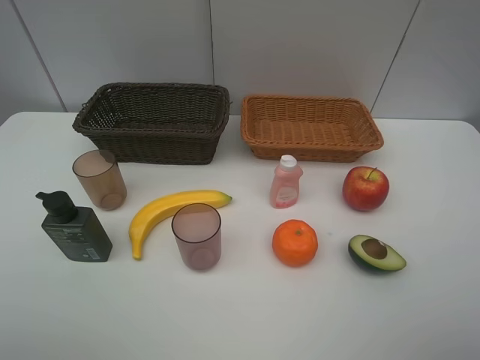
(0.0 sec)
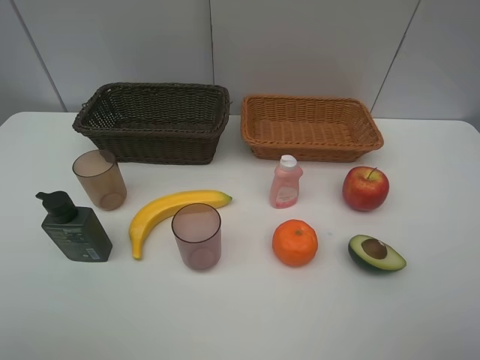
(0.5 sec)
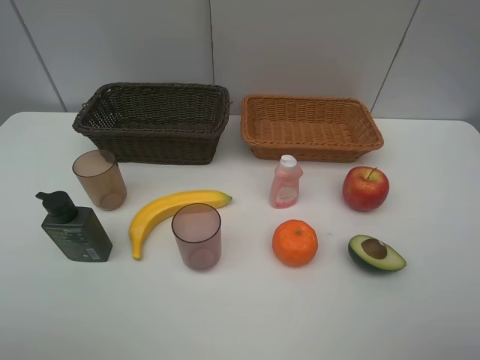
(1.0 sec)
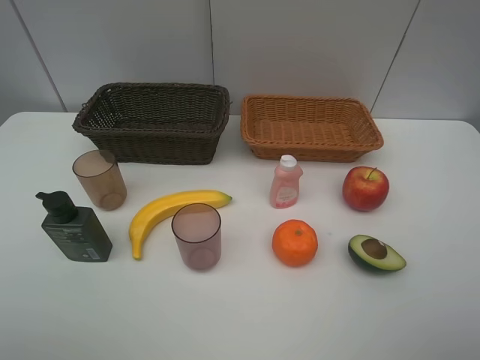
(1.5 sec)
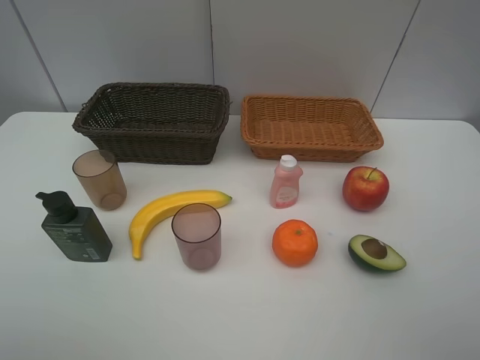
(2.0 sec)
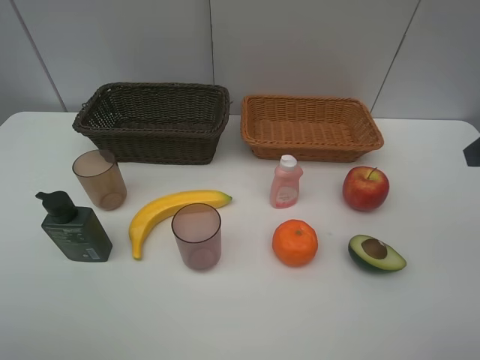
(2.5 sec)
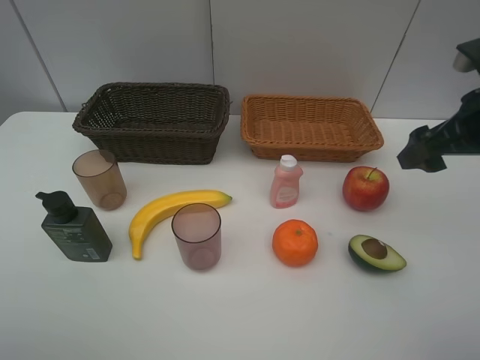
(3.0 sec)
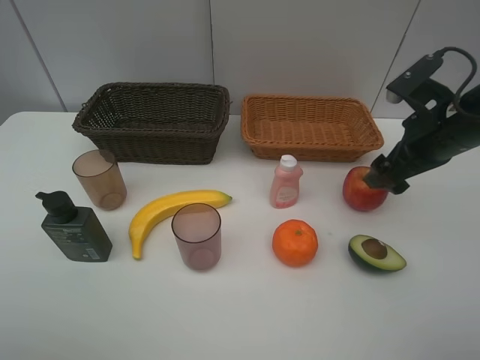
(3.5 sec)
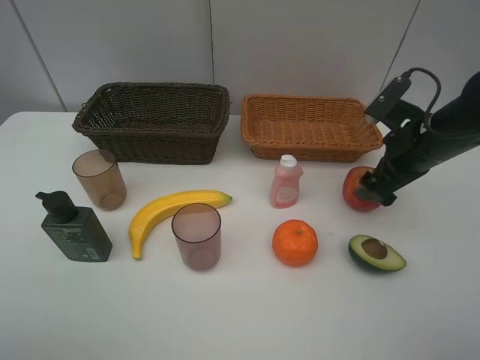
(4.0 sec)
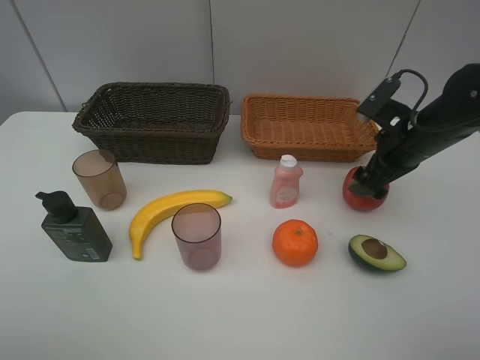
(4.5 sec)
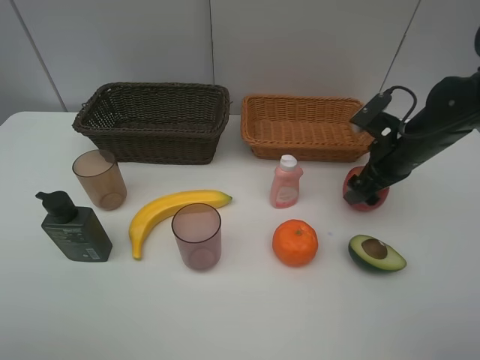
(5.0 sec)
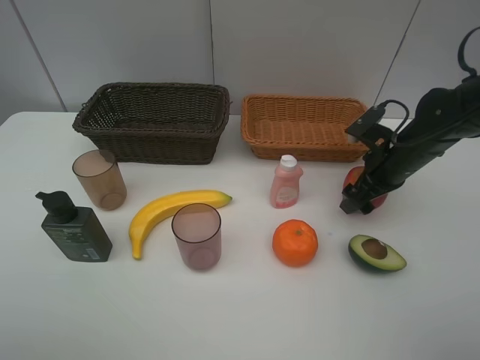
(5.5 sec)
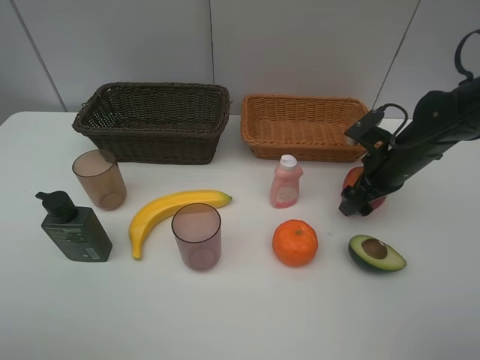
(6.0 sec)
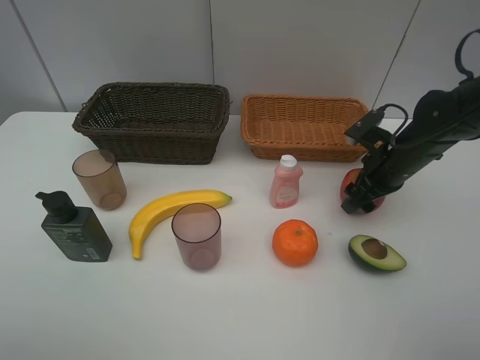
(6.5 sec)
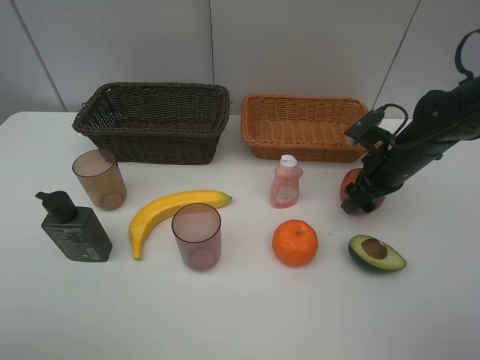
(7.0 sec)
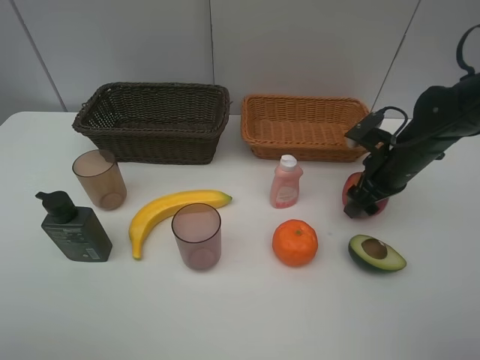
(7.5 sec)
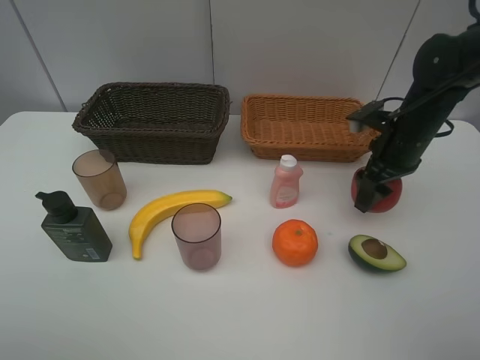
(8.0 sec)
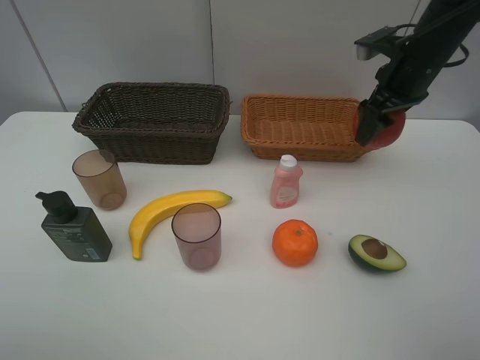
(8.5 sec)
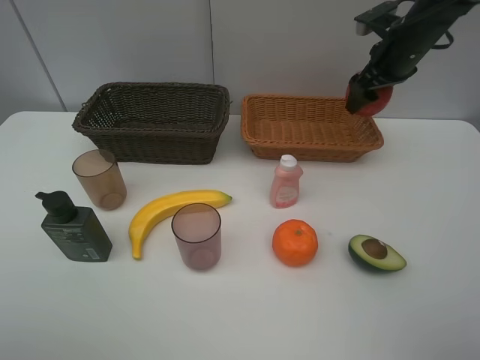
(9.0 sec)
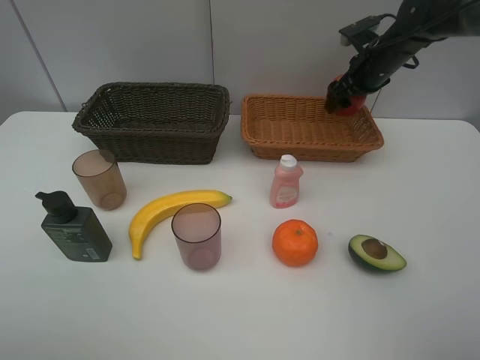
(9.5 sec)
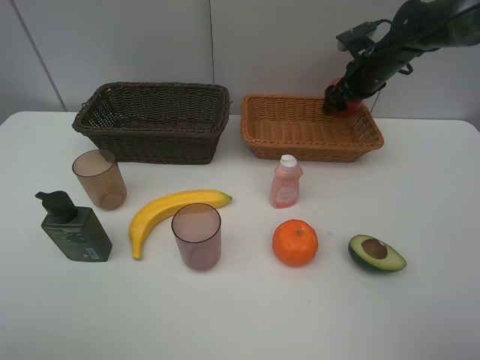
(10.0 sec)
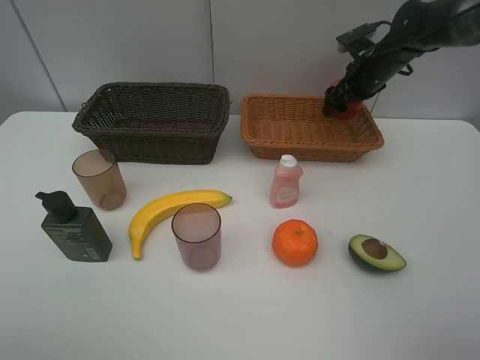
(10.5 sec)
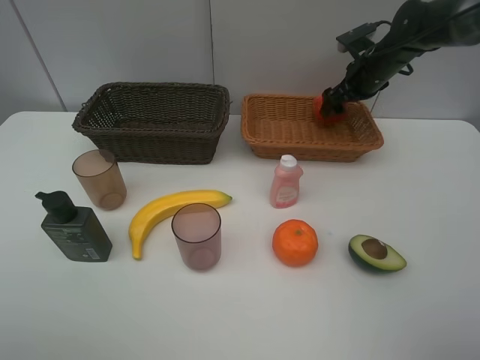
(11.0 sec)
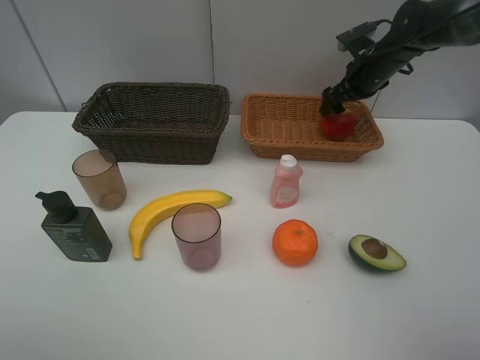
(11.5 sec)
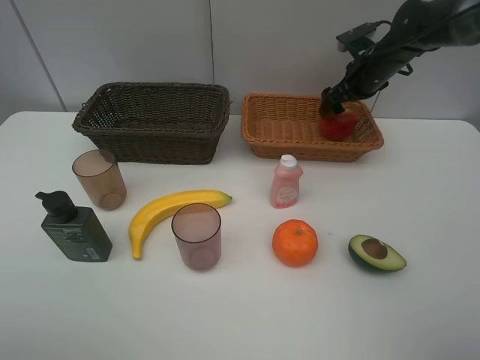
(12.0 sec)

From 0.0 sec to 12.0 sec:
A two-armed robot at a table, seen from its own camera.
Task of the whole recording: Place multiple objects separately in different baskets.
Step, from 0.0 sec to 8.0 sec: Pick up the apple with right gripper.
From 2.0 sec to 4.0 sec: The right gripper travels forward and downward by roughly 25 cm.
From 4.0 sec to 6.0 sec: The right gripper shifts some 5 cm downward.
From 6.0 sec to 8.0 sec: The right gripper ends up approximately 5 cm from where it was.
From 8.0 sec to 10.0 sec: The right gripper shifts roughly 15 cm forward.
From 10.0 sec to 12.0 sec: Neither gripper changes place.

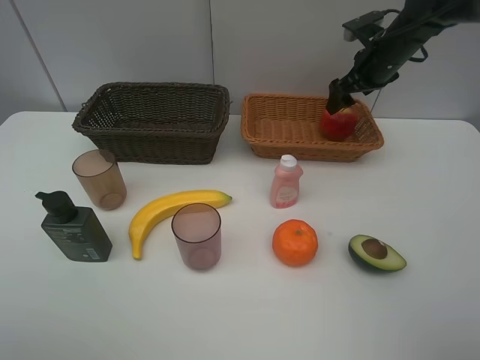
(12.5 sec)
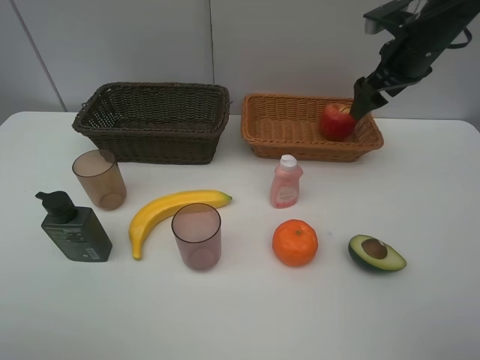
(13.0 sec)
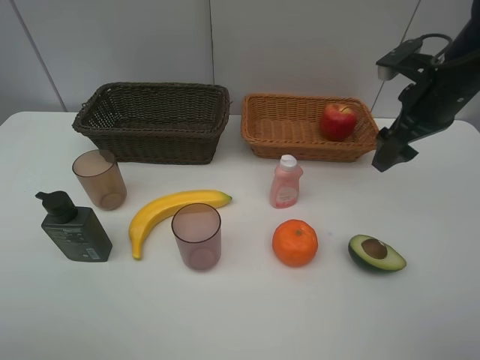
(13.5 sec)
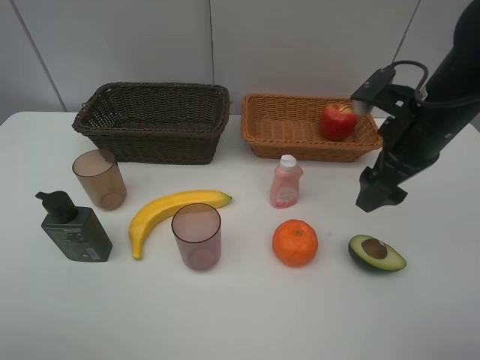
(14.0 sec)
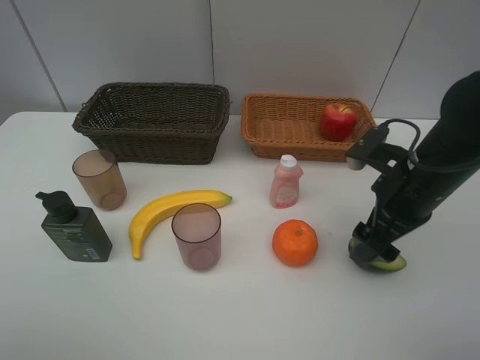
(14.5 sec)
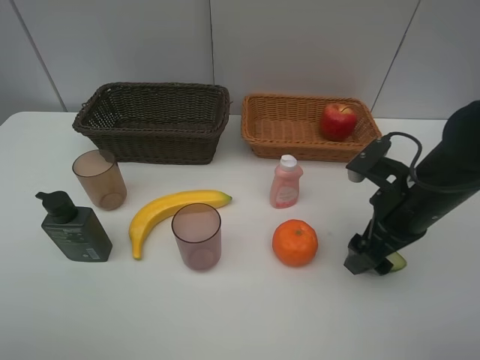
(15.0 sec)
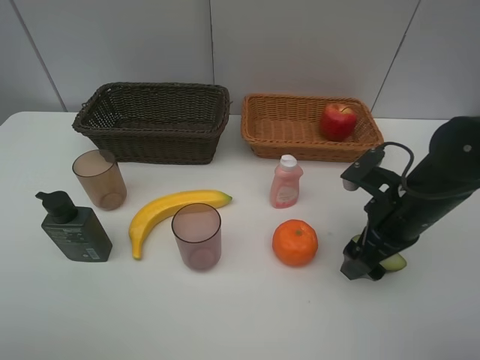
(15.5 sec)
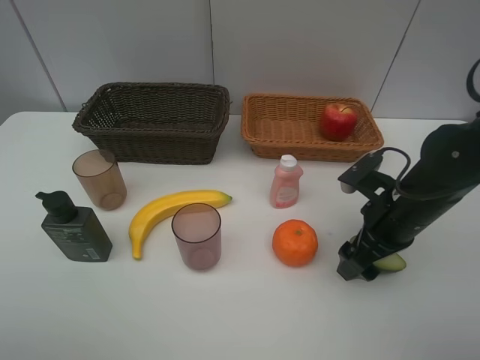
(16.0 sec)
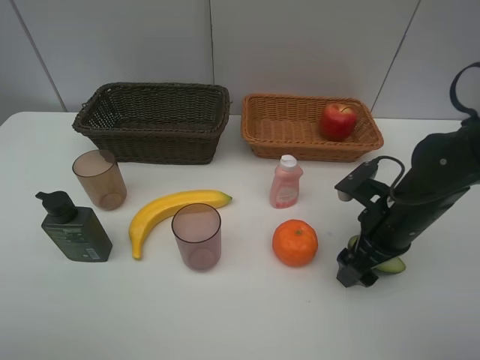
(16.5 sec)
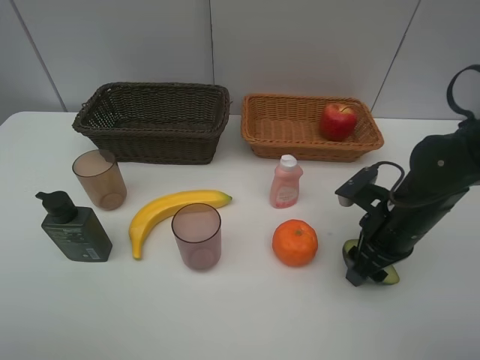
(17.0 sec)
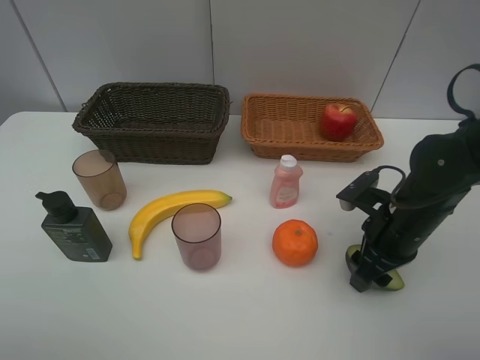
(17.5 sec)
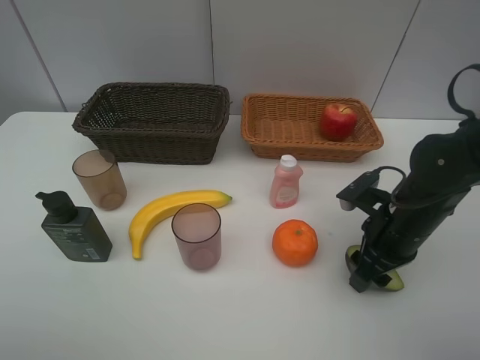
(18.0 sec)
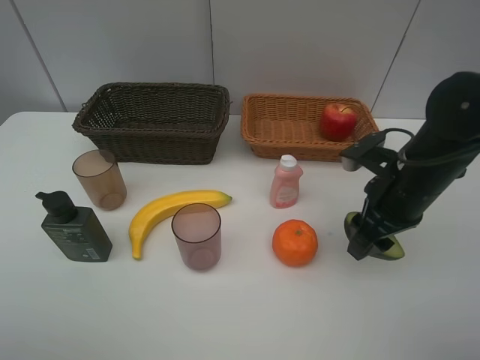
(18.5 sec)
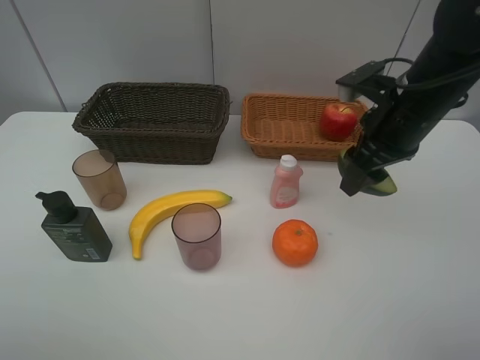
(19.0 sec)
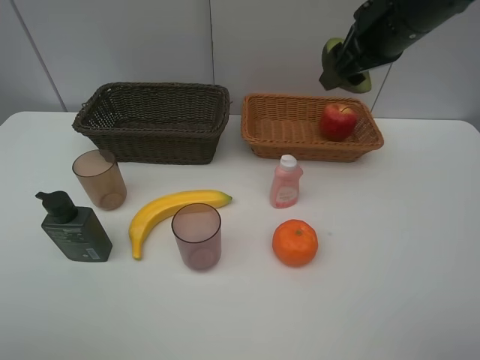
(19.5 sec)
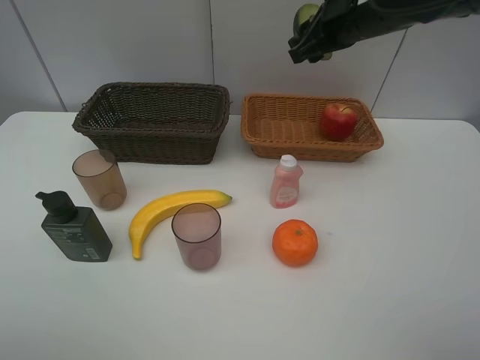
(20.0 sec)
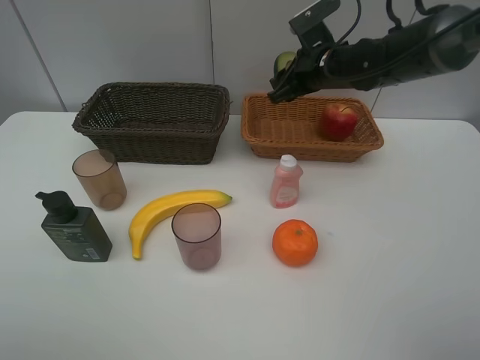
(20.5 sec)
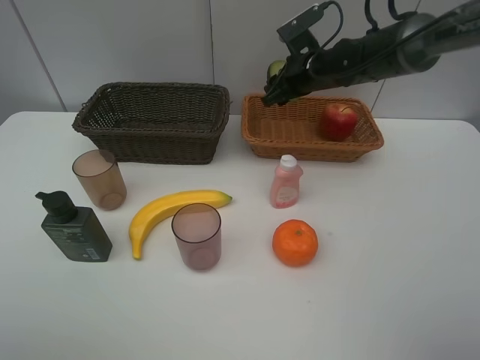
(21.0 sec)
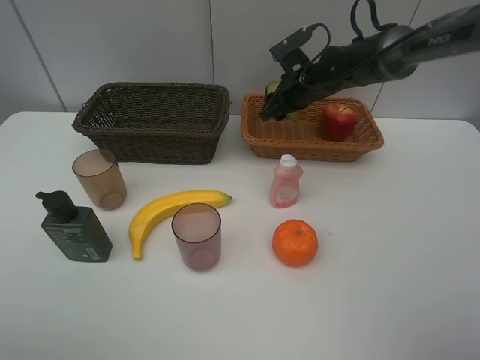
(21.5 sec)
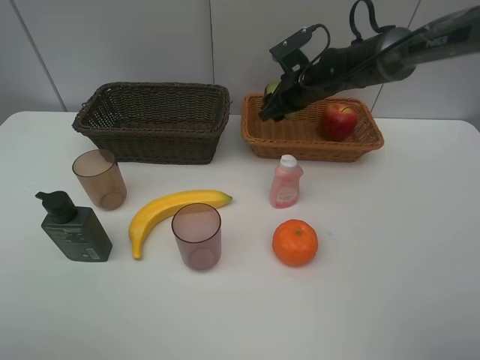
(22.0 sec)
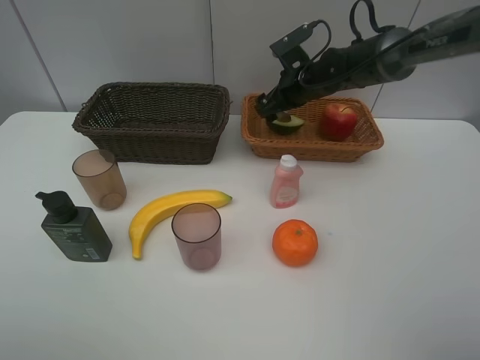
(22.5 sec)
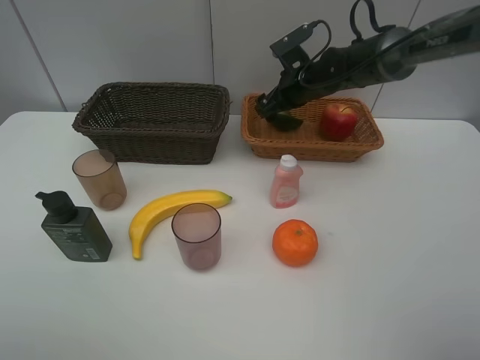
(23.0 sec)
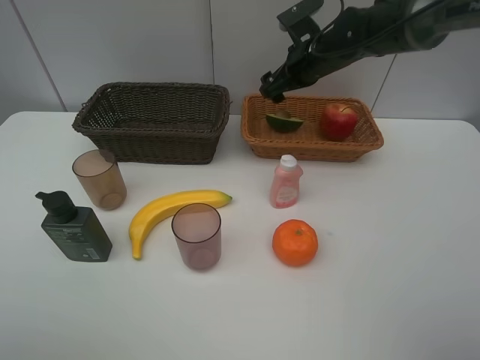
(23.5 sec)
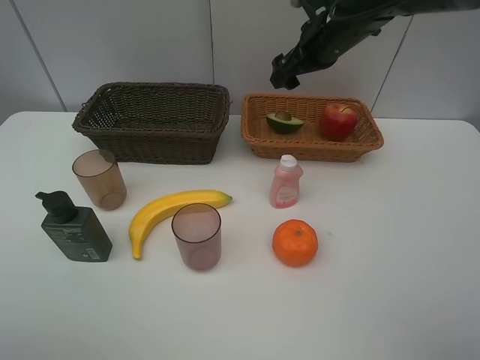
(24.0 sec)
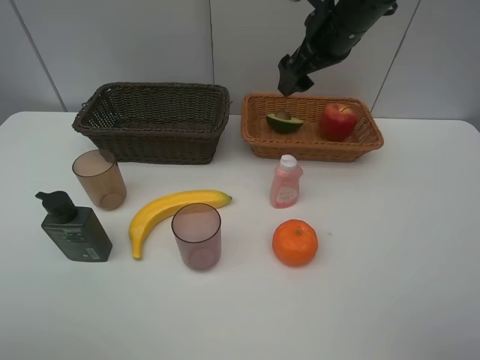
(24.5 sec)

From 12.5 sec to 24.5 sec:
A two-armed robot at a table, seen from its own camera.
Task of the whole recording: Place multiple objects separately in different baskets.
Step, from 12.5 sec to 18.0 sec: Pick up the avocado with right gripper.
Step, from 18.5 sec to 23.0 sec: Place the avocado in the light basket with right gripper.
From 12.5 sec to 14.5 sec: The right gripper shifts roughly 25 cm backward.
From 14.5 sec to 16.5 sec: The right gripper heads downward, covering some 5 cm.
From 16.5 sec to 18.5 sec: The right gripper shifts some 5 cm upward, and closes its fingers.
From 18.5 sec to 20.5 sec: The right gripper goes about 20 cm forward.
From 20.5 sec to 22.5 sec: The right gripper moves approximately 5 cm, and opens up.
From 22.5 sec to 24.5 sec: The right gripper travels upward and backward by approximately 15 cm.

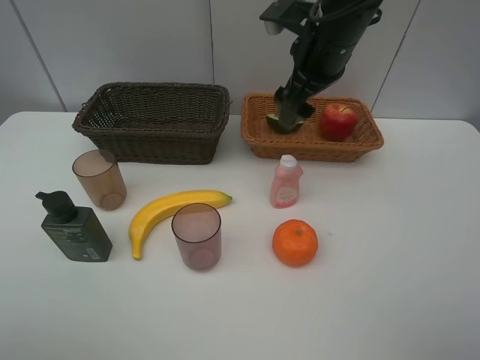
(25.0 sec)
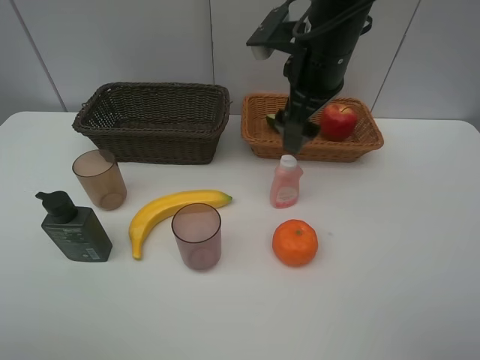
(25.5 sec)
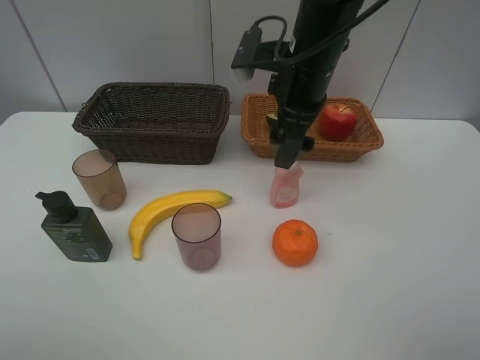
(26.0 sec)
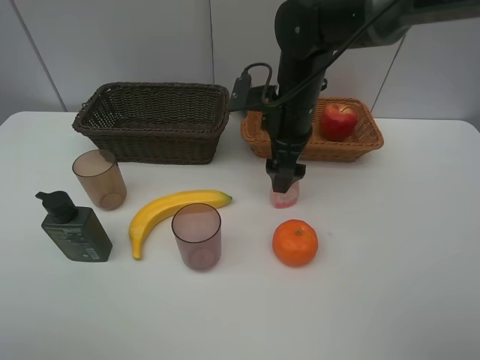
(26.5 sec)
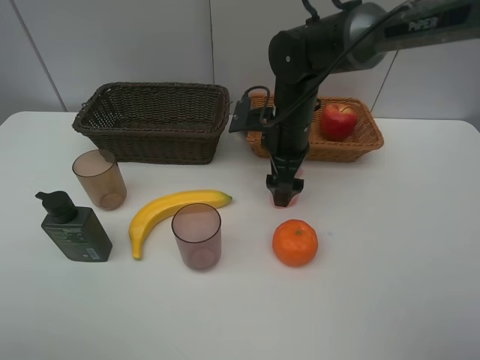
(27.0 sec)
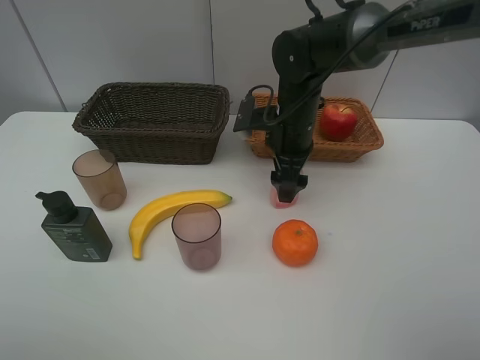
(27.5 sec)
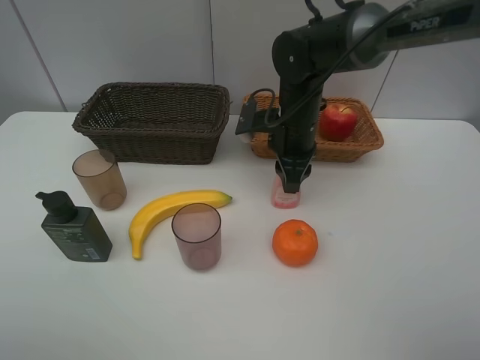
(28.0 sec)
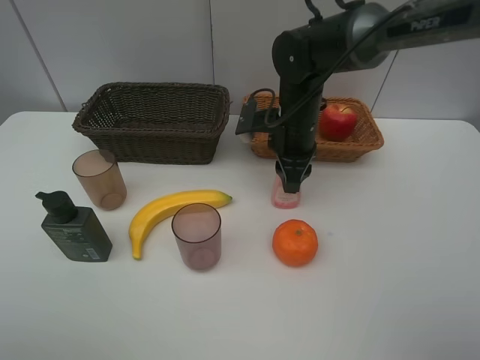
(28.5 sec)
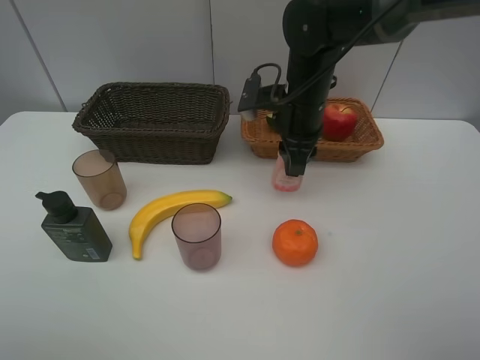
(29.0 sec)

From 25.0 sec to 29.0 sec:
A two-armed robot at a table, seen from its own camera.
Task of the whole recording: Place multiple objects separately in different baskets.
Step, from 25.0 sec to 29.0 sec: Pick up the laundry detergent with right gripper.
From 25.0 sec to 27.0 sec: The right gripper is displaced downward by roughly 10 cm.
From 27.0 sec to 29.0 sec: The right gripper closes its fingers.
